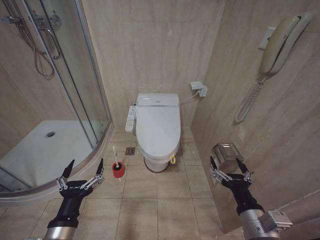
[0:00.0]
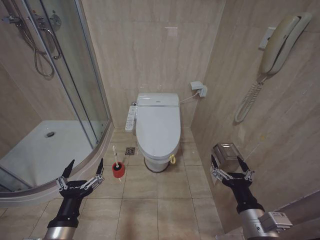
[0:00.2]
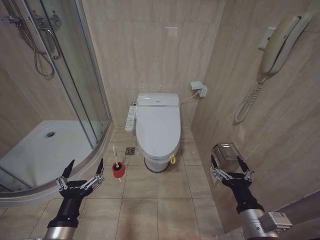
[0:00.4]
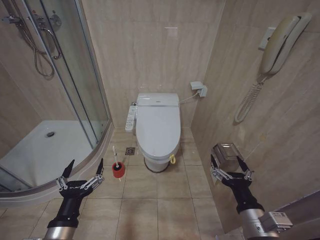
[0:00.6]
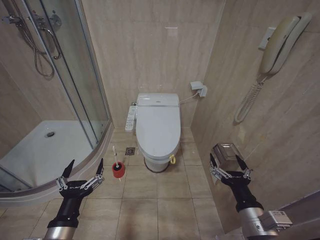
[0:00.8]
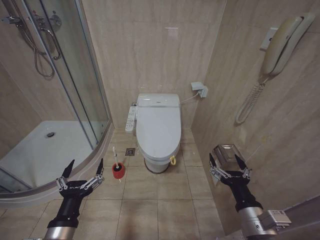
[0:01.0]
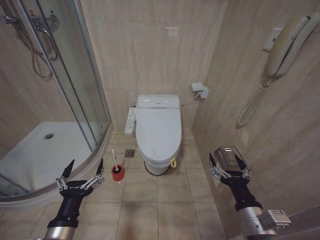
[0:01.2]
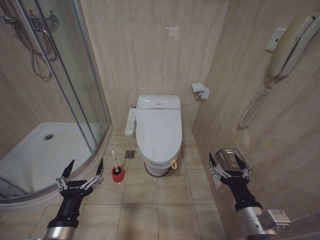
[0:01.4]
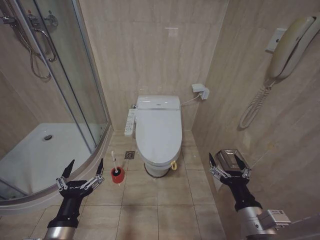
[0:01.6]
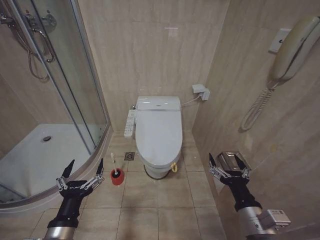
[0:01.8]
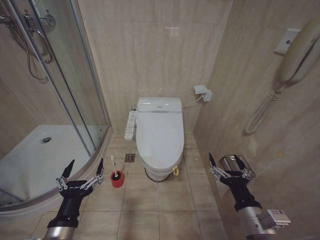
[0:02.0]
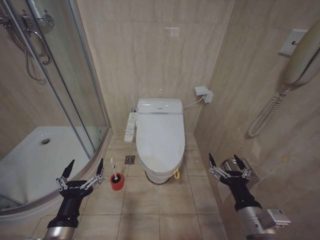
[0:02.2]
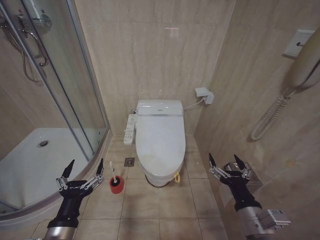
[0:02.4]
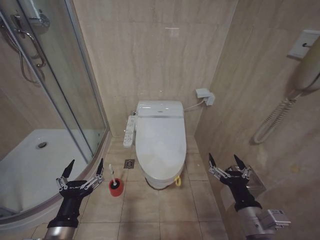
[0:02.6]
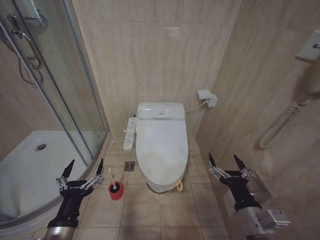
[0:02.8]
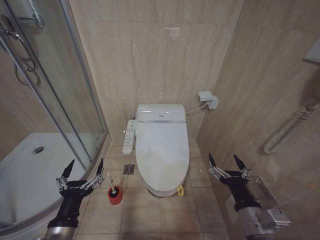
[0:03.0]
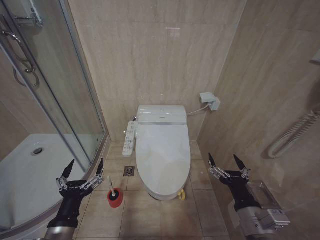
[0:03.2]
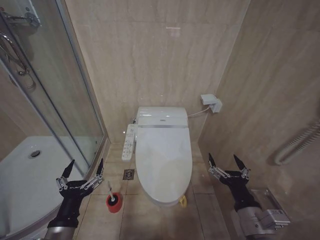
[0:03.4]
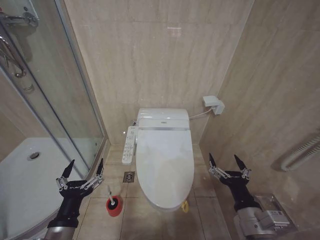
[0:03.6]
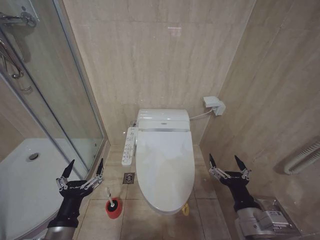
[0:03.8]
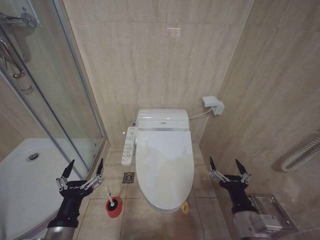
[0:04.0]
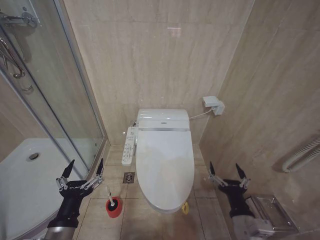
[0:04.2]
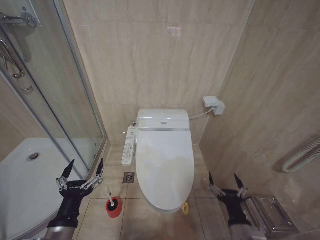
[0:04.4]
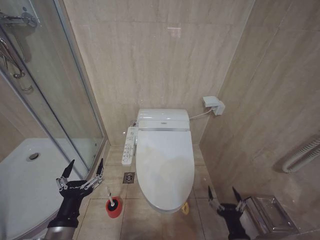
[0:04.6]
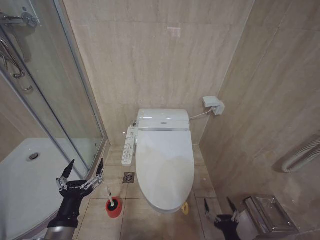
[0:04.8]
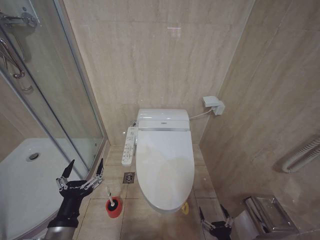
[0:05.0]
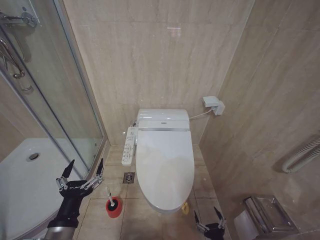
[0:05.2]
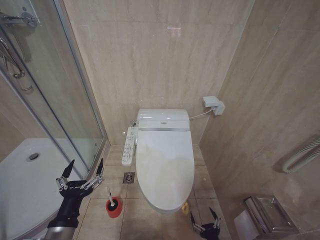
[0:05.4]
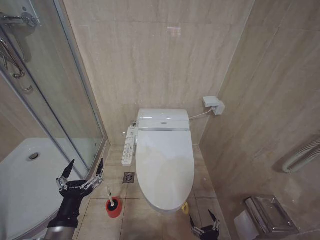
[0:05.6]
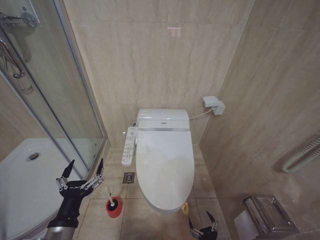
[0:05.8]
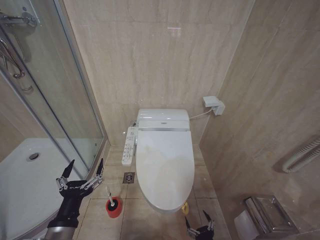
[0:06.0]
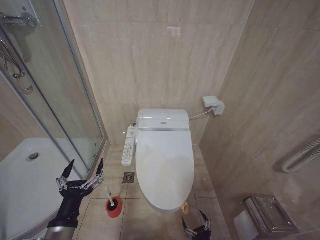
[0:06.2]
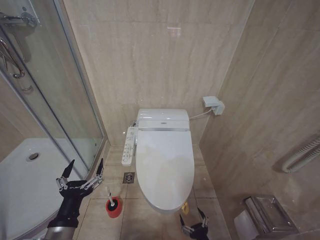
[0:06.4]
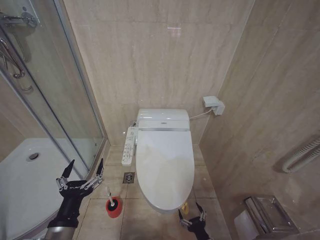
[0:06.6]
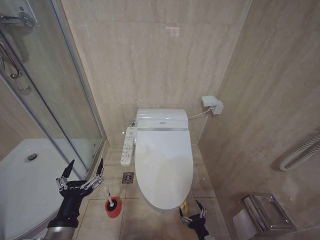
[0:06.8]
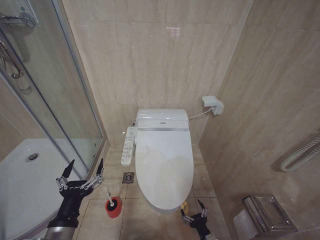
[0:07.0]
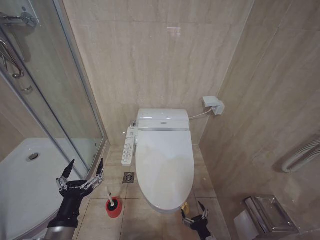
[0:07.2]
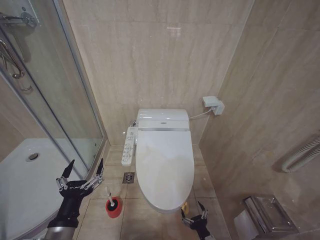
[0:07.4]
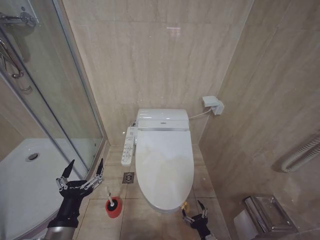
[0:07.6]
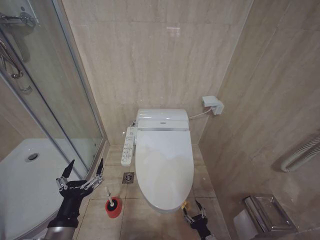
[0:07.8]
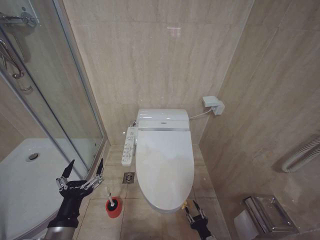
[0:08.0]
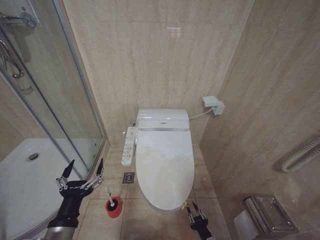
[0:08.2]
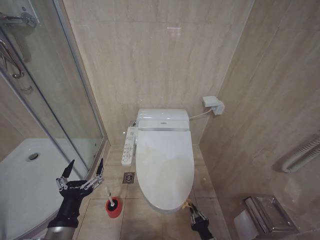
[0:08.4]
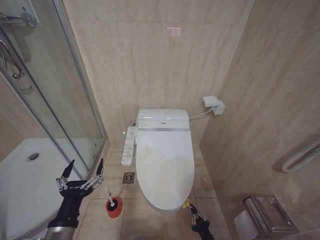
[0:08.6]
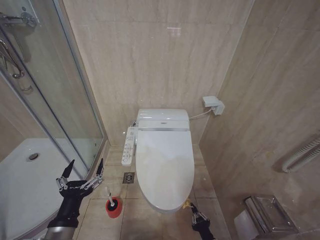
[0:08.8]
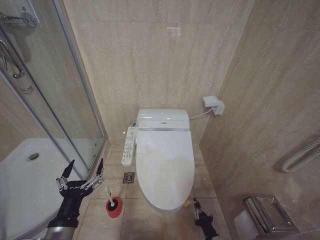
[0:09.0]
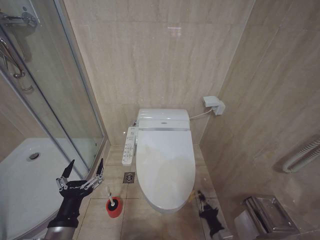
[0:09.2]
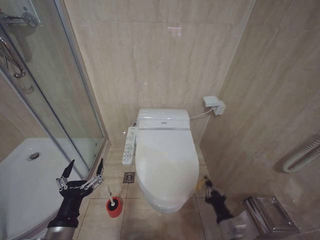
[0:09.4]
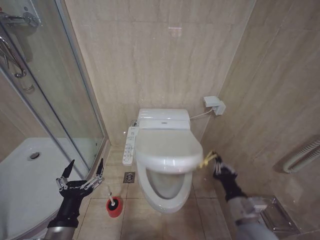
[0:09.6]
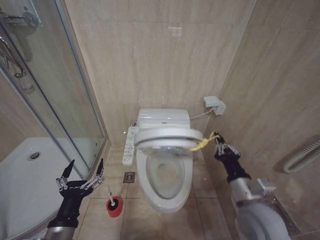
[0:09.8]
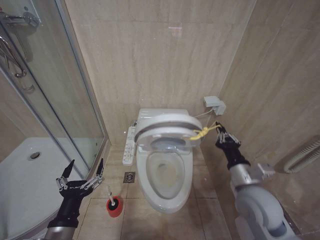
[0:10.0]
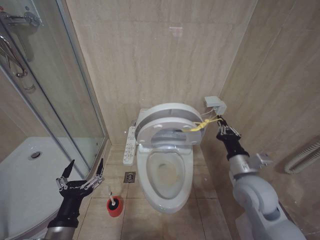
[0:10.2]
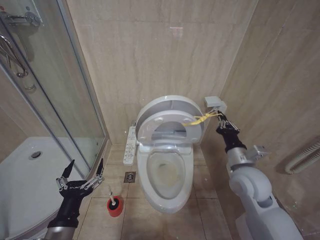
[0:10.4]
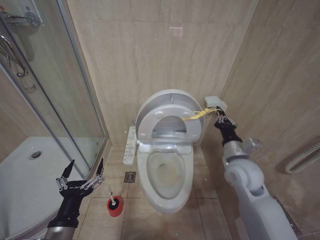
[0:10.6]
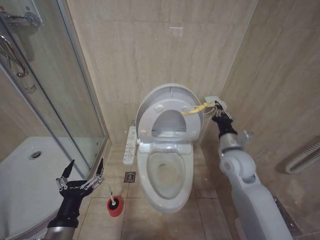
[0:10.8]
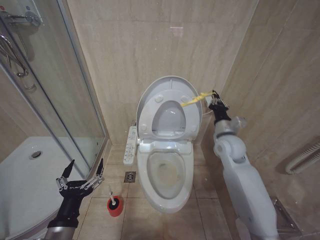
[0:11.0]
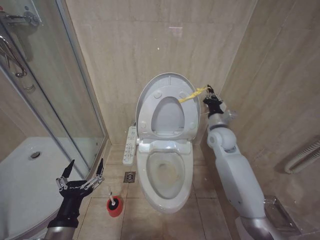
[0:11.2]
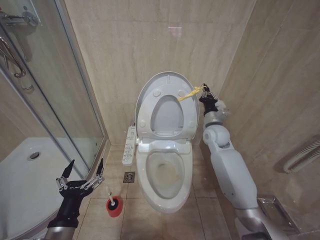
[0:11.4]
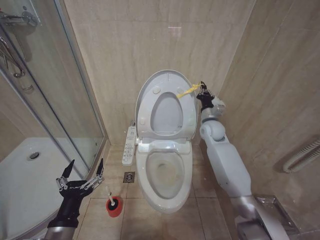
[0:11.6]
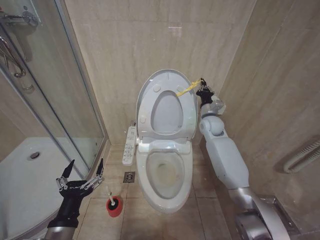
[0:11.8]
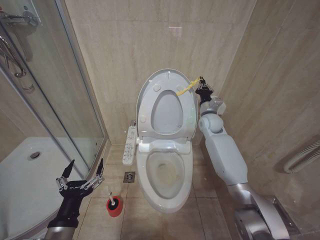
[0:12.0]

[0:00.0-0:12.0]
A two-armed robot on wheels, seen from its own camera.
Task of the whole recording: Open the toilet lid, clean the toilet bowl with a toilet brush, close the toilet lid, and flush.
0:01.6 to 0:03.0: Both grippers stay about where they are.
0:03.0 to 0:04.4: The right gripper travels downward by about 10 cm.
0:04.4 to 0:06.0: The right gripper travels downward by approximately 20 cm.
0:09.0 to 0:10.4: The right gripper goes roughly 35 cm upward and forward.
0:10.4 to 0:12.0: The right gripper heads forward, covering some 25 cm.

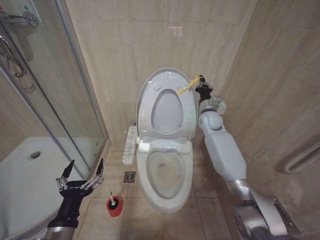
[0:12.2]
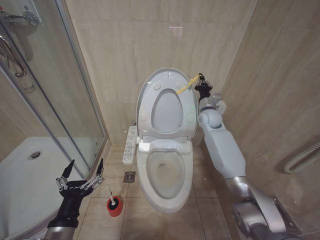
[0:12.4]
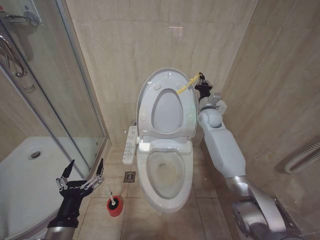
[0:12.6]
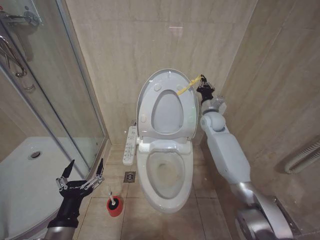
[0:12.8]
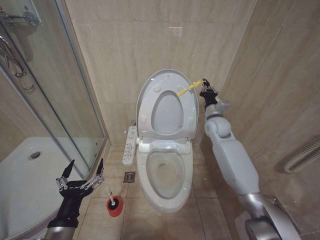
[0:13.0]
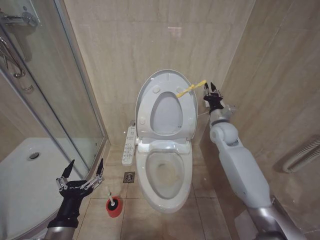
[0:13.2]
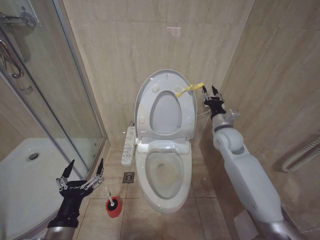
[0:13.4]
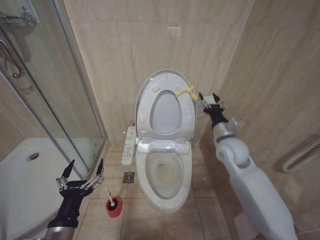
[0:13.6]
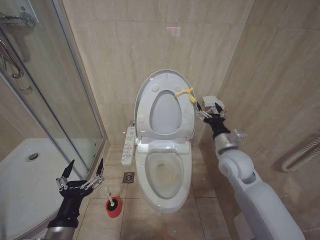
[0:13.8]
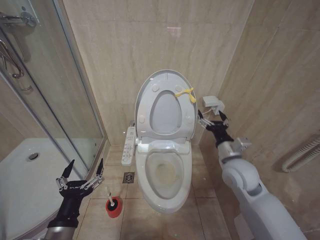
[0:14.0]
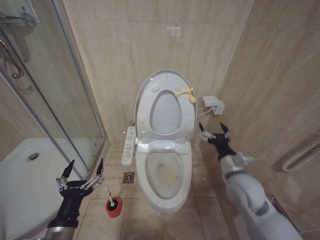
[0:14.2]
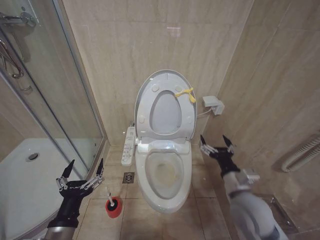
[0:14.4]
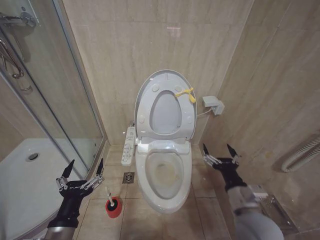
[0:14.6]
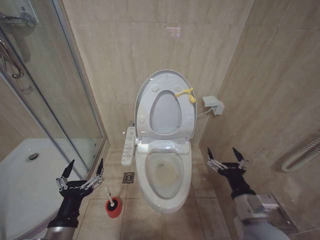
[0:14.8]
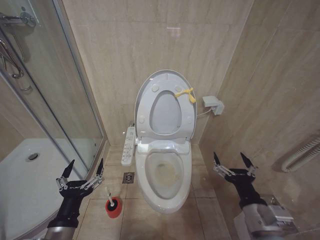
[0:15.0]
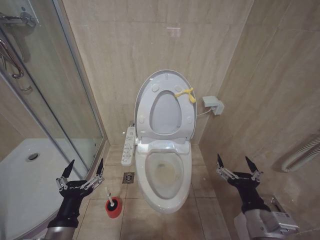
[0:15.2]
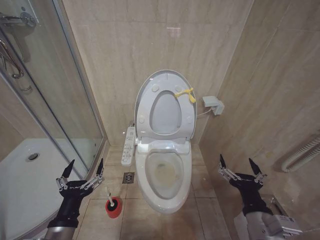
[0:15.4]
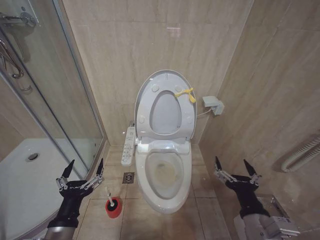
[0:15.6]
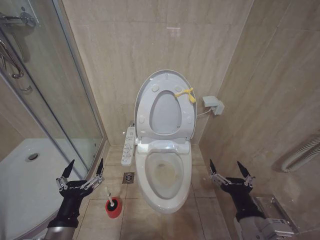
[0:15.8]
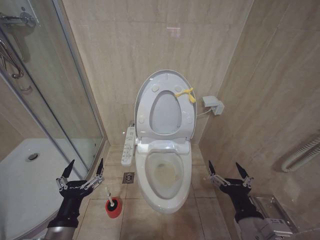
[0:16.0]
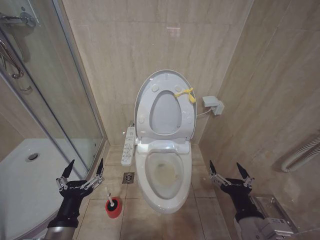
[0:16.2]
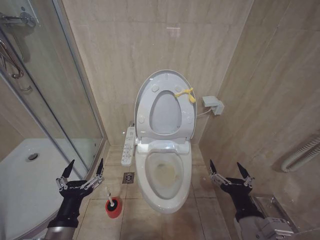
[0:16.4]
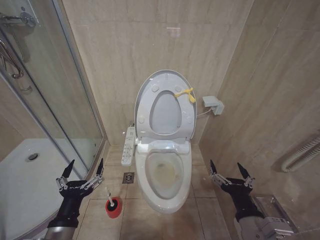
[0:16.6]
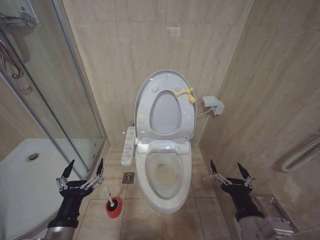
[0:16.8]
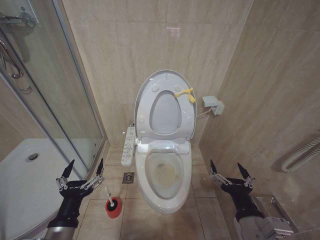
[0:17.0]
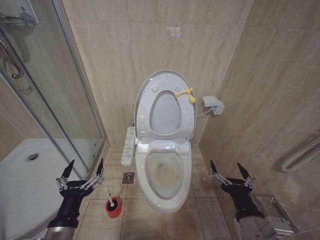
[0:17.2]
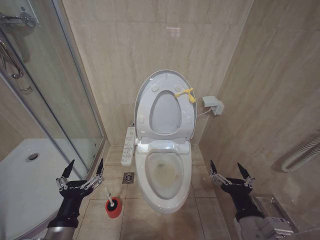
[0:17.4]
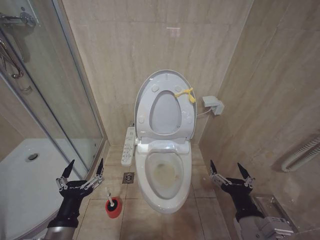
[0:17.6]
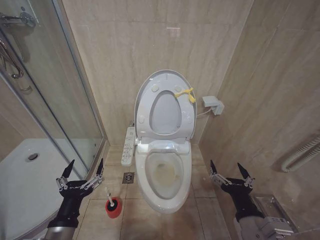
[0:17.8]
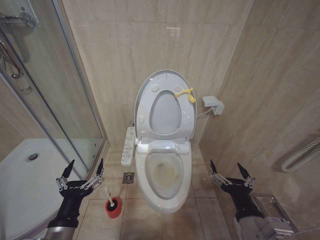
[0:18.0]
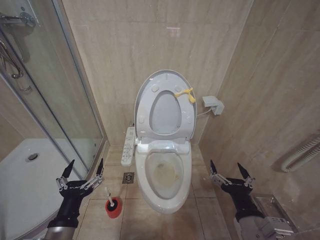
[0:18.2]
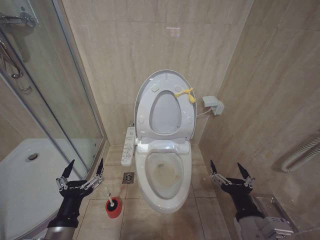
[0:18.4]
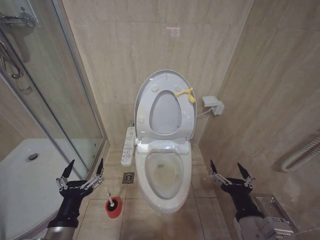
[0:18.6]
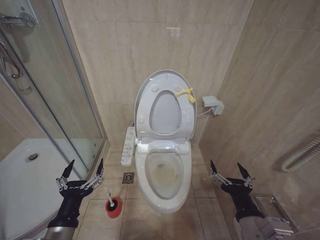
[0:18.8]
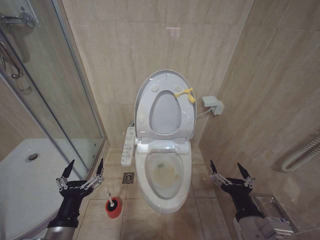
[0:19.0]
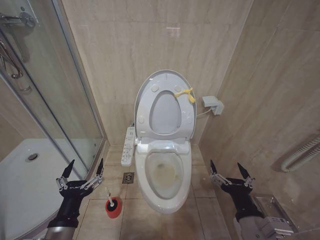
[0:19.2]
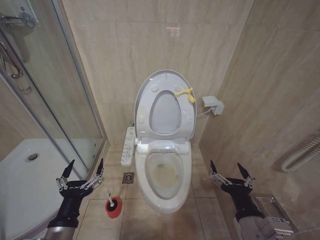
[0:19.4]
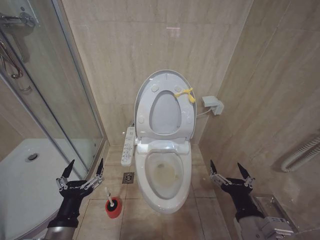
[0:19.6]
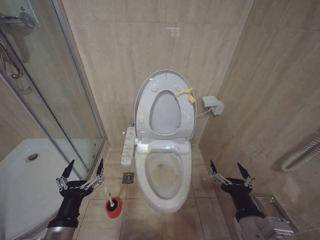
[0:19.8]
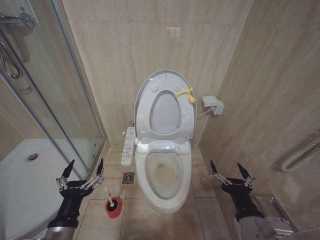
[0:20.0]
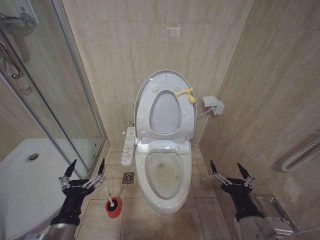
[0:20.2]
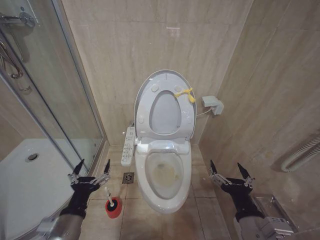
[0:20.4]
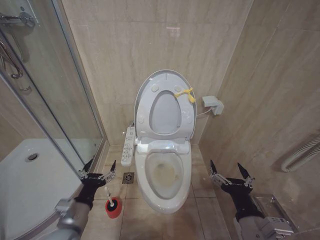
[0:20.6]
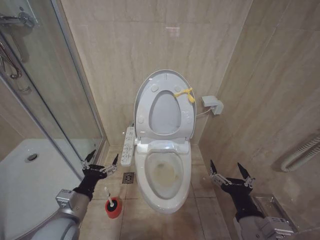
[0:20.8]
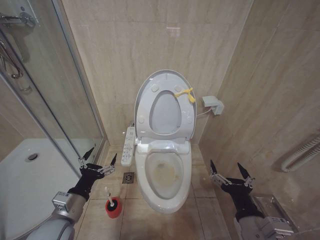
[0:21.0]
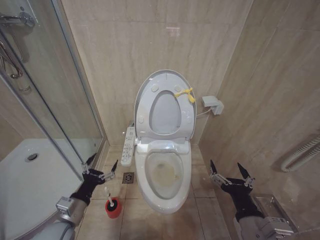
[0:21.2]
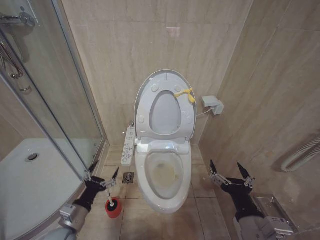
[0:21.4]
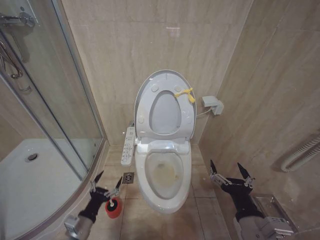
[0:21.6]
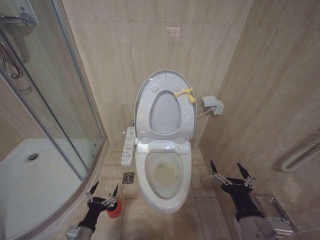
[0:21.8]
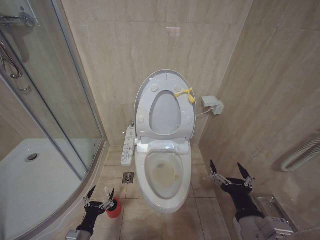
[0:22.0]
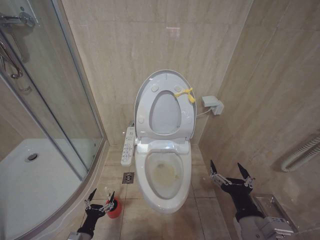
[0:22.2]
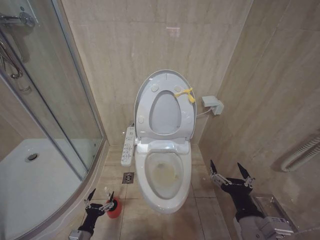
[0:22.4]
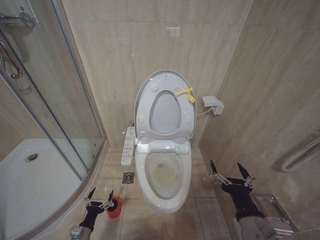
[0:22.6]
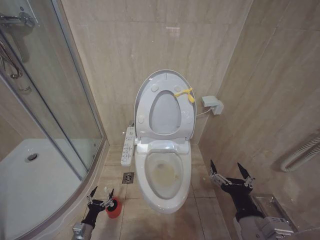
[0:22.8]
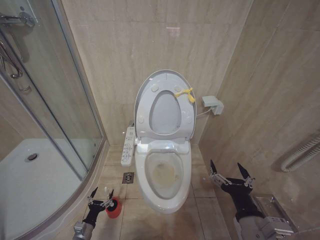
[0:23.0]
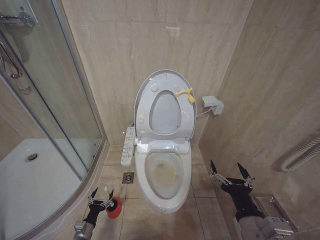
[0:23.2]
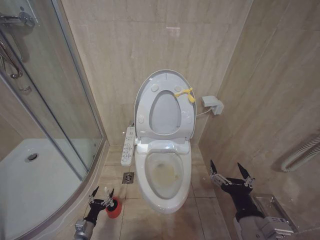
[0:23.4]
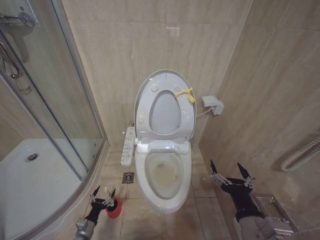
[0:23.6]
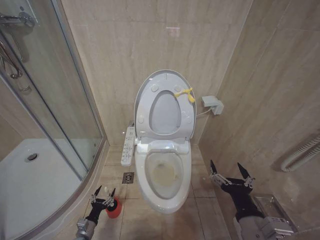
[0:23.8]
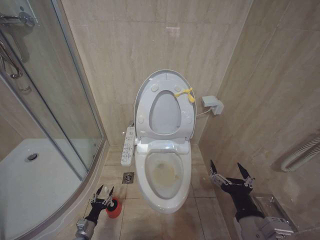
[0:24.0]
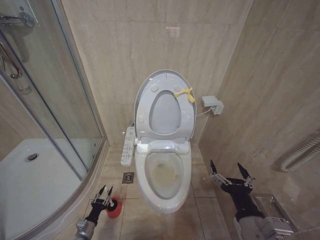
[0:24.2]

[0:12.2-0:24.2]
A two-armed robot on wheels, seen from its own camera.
Task of the whole recording: Open the toilet lid, clean the toilet bowl with a toilet brush, close the toilet lid, and flush.
0:12.2 to 0:13.8: The right gripper travels backward by approximately 20 cm, and opens its fingers.
0:13.8 to 0:15.2: The right gripper is displaced backward by approximately 25 cm.
0:15.2 to 0:16.6: The grippers move only a little.
0:16.6 to 0:19.8: Both grippers stay about where they are.
0:19.8 to 0:21.2: The left gripper goes roughly 10 cm forward.
0:21.2 to 0:22.6: The left gripper shifts some 25 cm downward.
0:22.6 to 0:24.2: The left gripper shifts about 5 cm downward.
